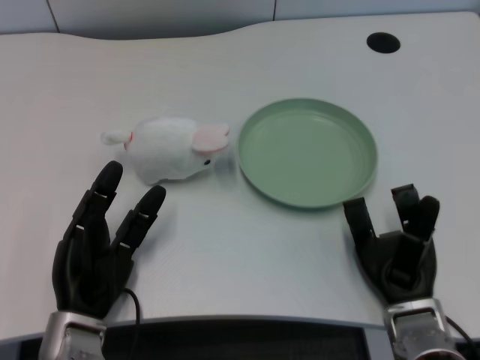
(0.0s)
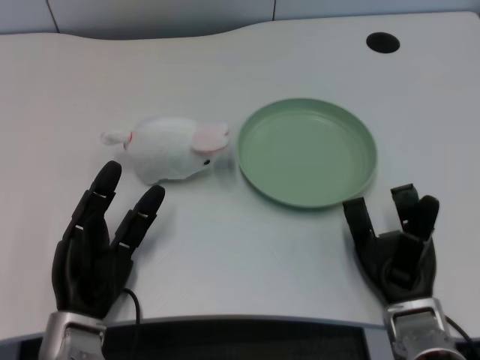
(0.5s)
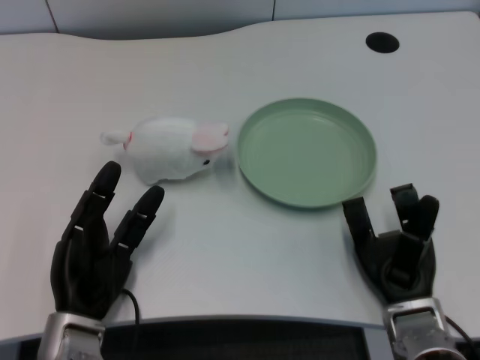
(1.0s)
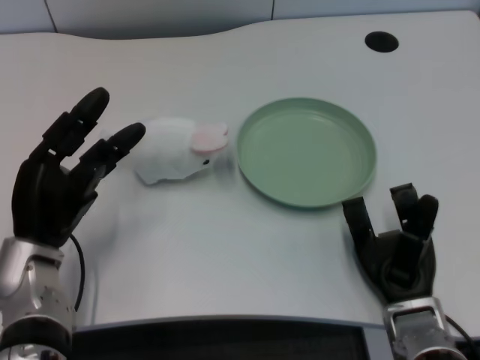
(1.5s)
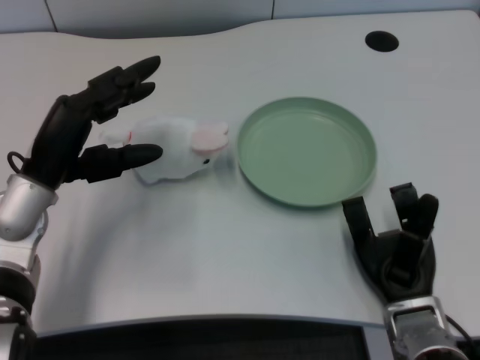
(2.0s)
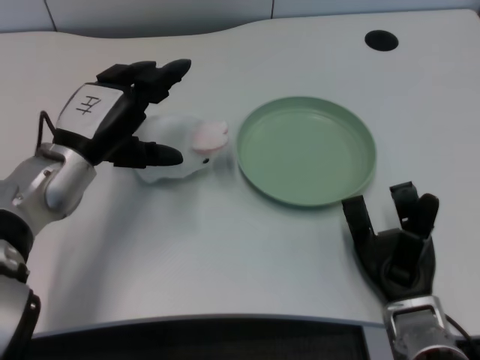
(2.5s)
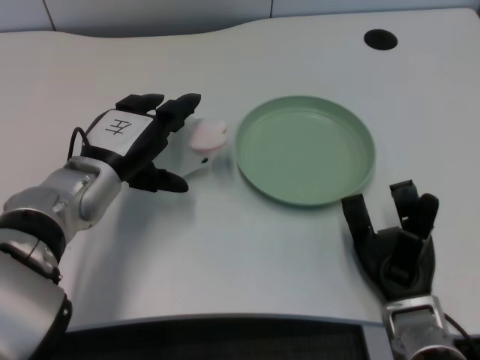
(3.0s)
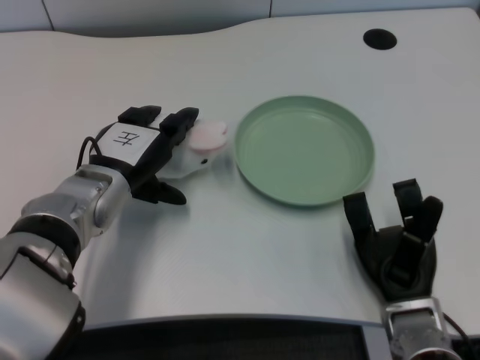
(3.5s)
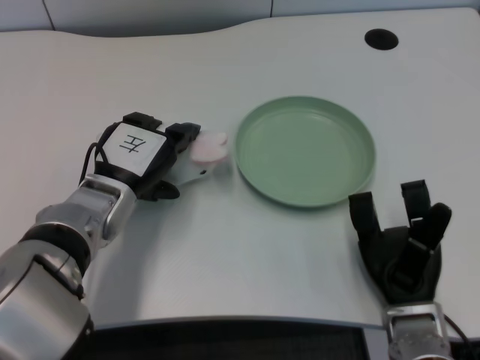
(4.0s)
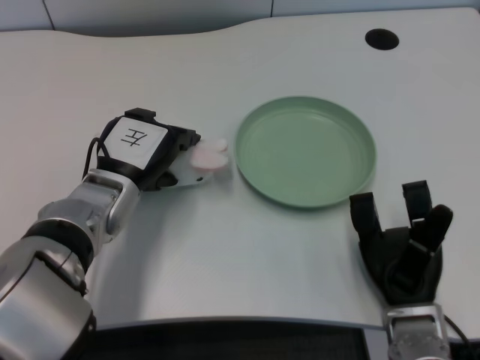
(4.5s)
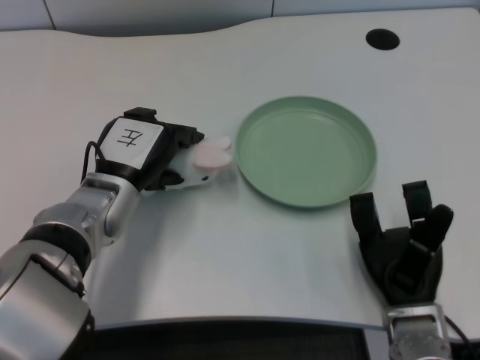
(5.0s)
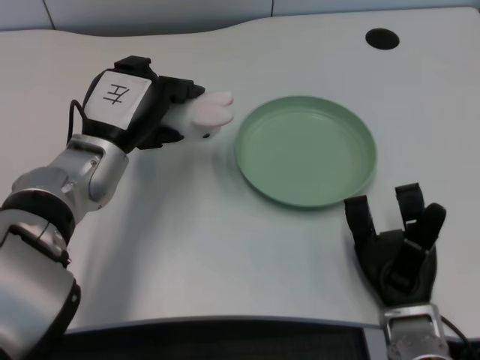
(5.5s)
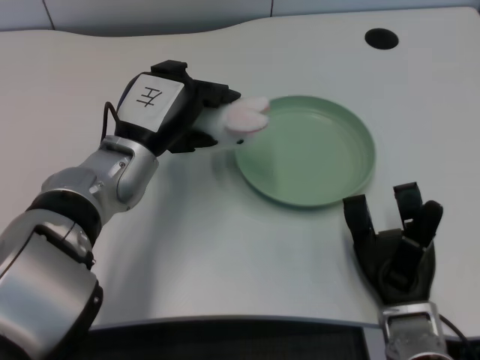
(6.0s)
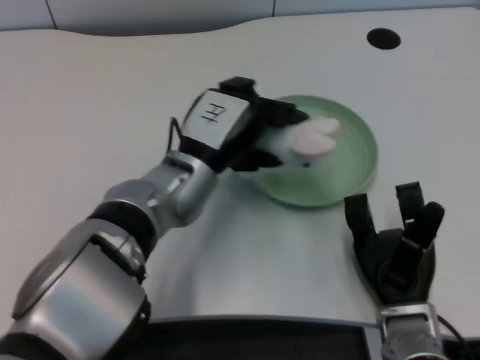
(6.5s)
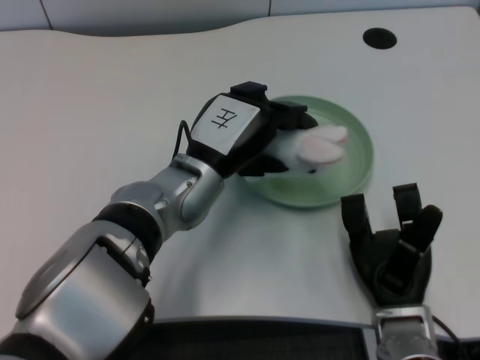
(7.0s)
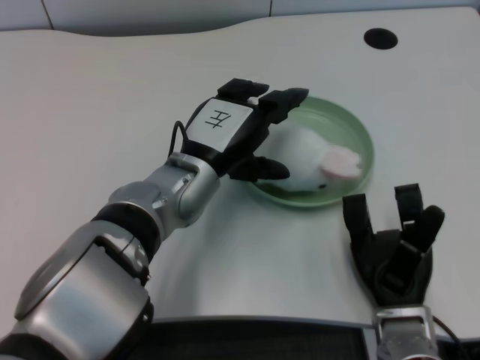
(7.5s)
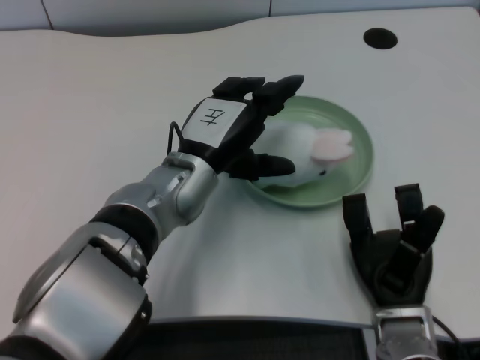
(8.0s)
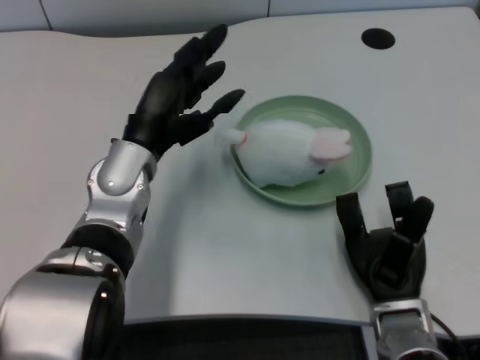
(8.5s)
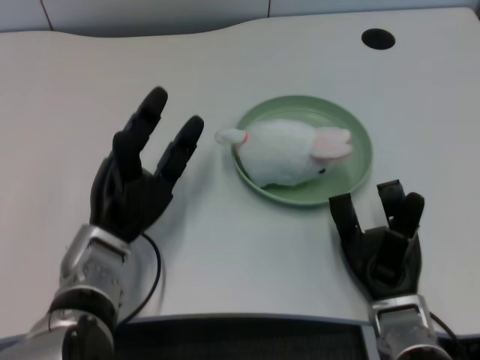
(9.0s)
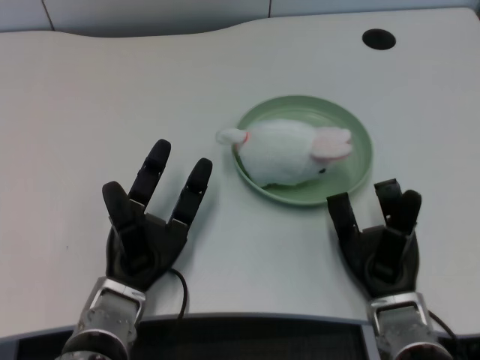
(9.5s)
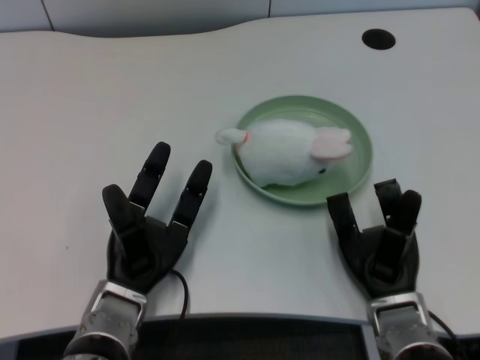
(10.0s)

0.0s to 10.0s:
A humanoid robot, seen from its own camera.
Task of the whole recording: pick up the rabbit doll from the table and place it on the plate.
Step, 1.5s to 5.0s: Grasp the rabbit doll with the left gripper.
Step, 5.5s to 7.5s: Place the rabbit doll into the plate with the left gripper.
2.0s to 4.0s: The left hand heads to the right, covering approximately 5 cm.
6.0s to 8.0s: The left hand travels to the right by some 5 cm.
8.0s to 10.0s: The left hand heads downward, backward and to the left, covering some 15 cm.

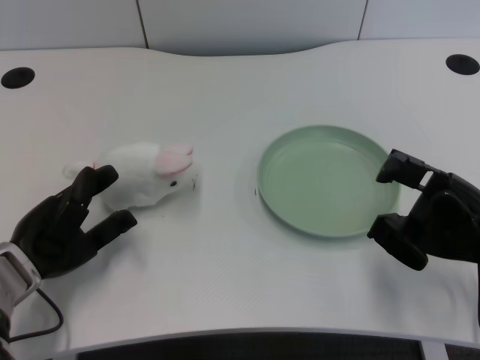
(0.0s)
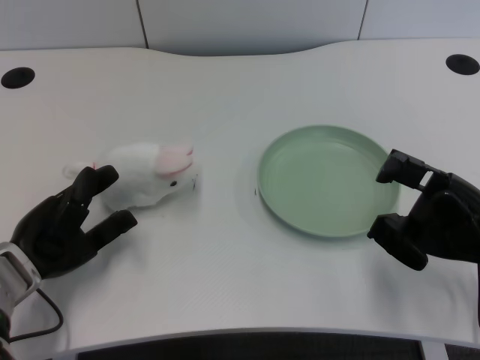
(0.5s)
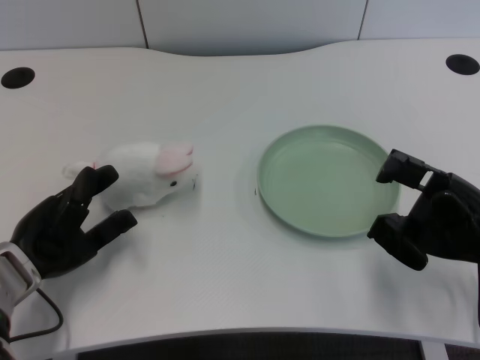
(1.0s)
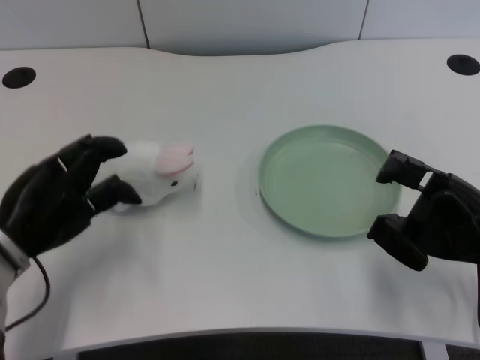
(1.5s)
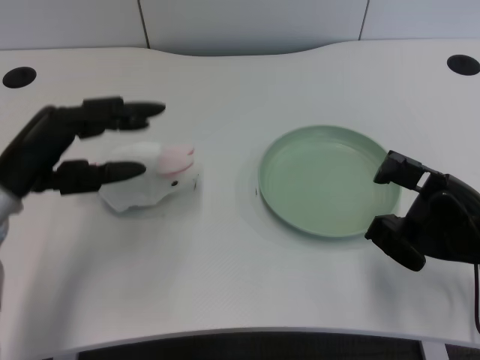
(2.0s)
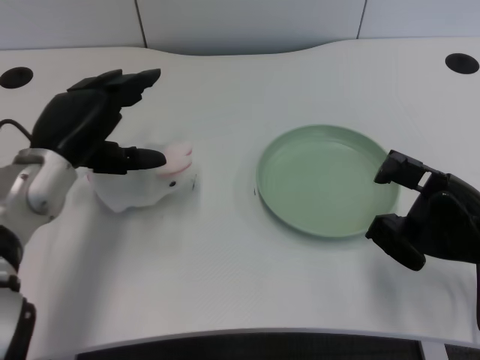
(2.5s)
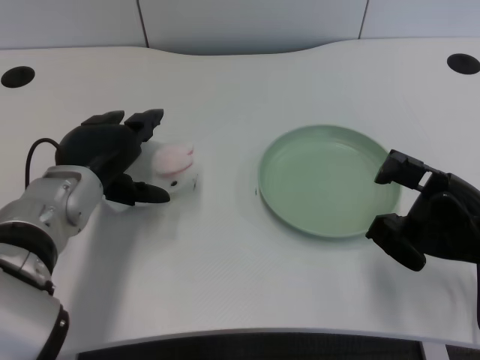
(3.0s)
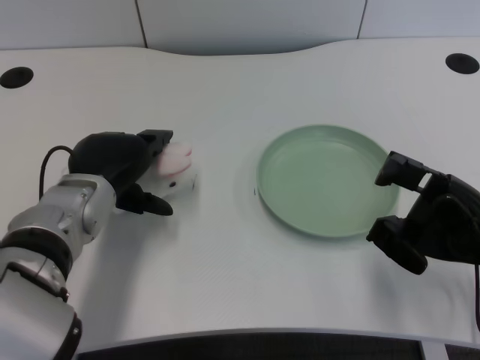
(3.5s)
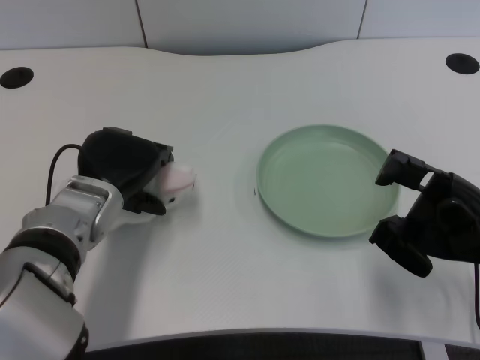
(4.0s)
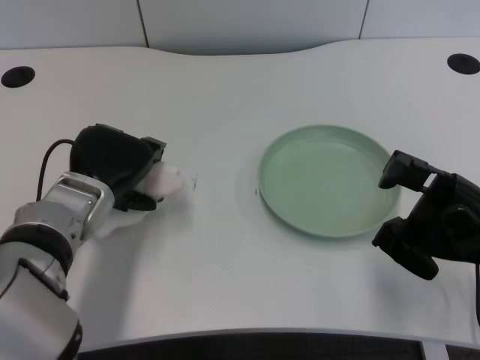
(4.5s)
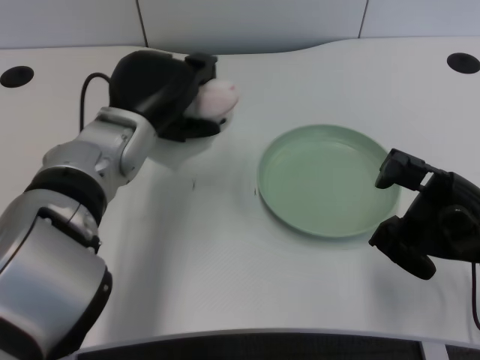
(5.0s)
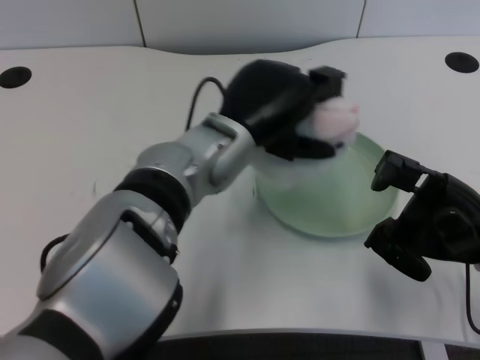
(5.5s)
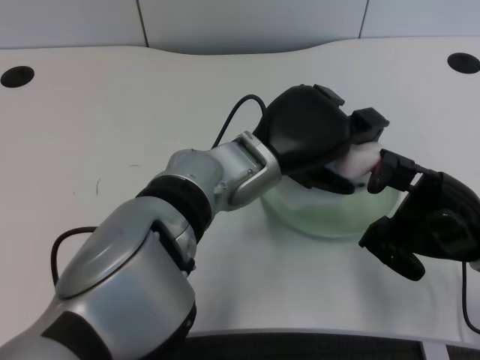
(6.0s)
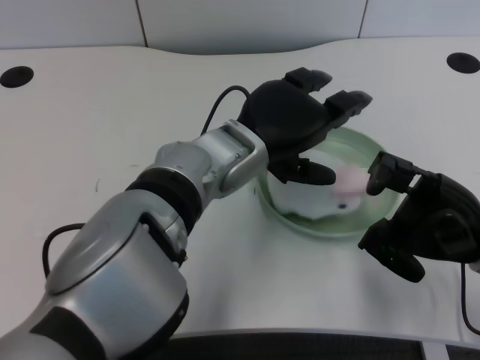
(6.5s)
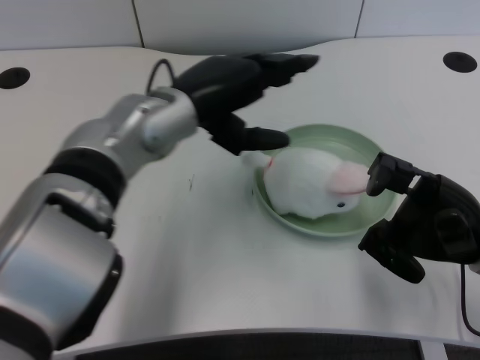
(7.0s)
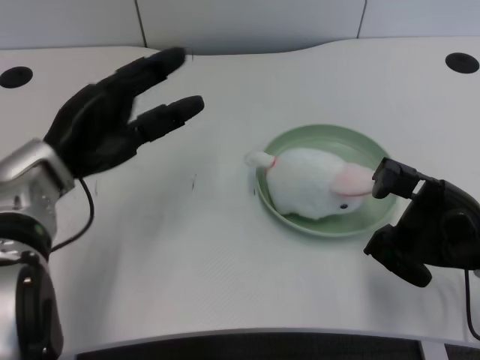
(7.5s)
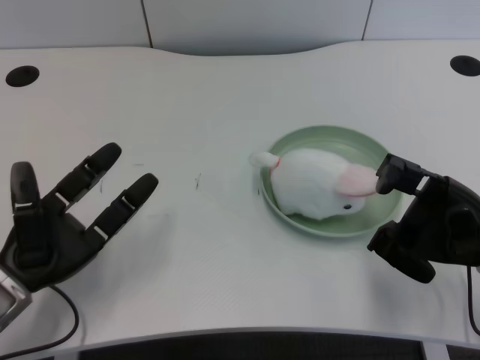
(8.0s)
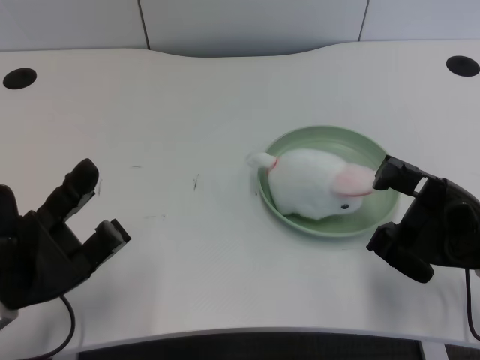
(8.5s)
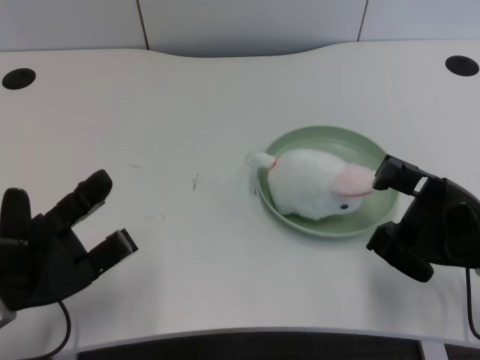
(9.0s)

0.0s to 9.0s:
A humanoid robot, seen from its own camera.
Task of the whole recording: pick up the rabbit doll from the table and place it on the plate.
Step, 1.5s to 4.5s: Grasp the rabbit doll with the left gripper.
Step, 5.0s to 6.0s: Place the rabbit doll into the plate with the left gripper.
2.0s to 4.5s: The left hand travels to the right by about 10 cm.
4.5s to 7.0s: The left hand shifts approximately 10 cm upward and to the right.
7.0s to 9.0s: The left hand heads to the left, downward and backward, covering approximately 25 cm.

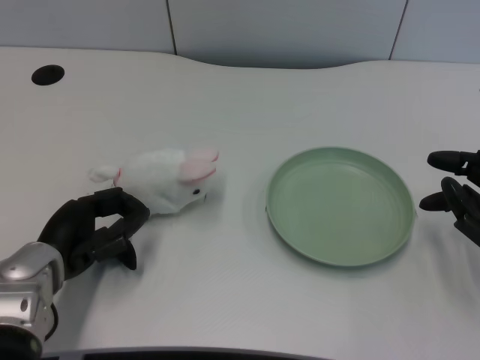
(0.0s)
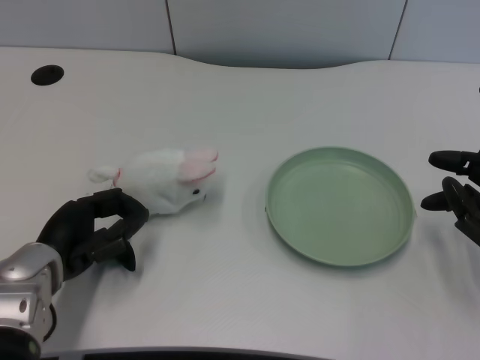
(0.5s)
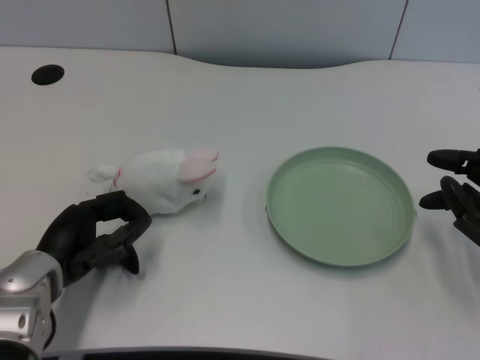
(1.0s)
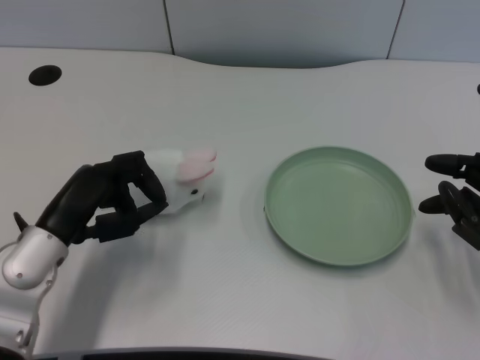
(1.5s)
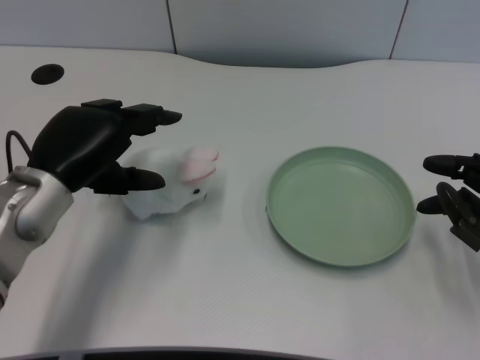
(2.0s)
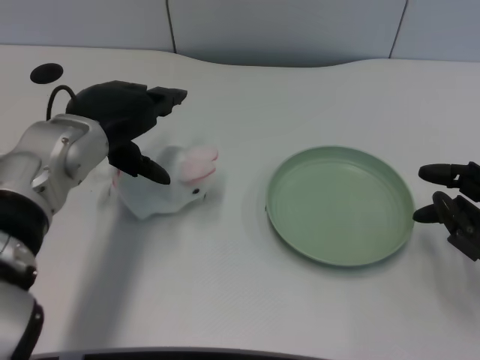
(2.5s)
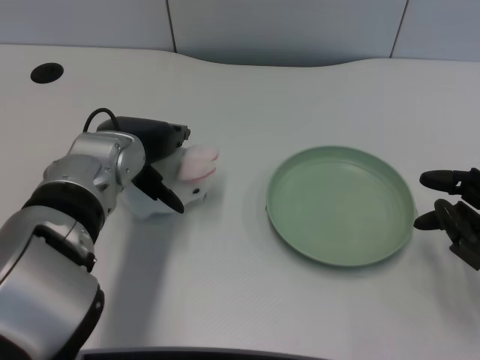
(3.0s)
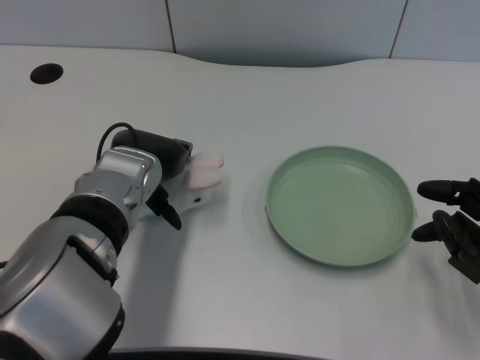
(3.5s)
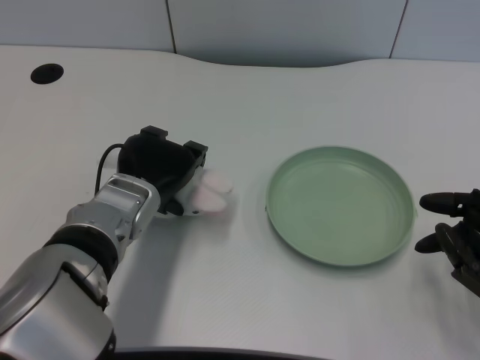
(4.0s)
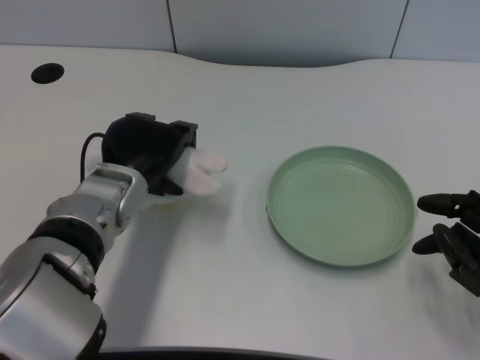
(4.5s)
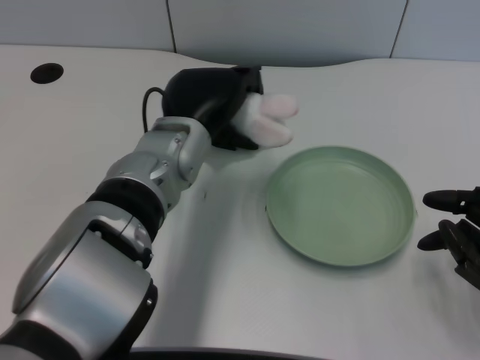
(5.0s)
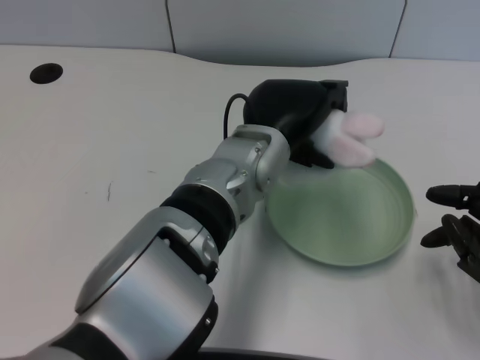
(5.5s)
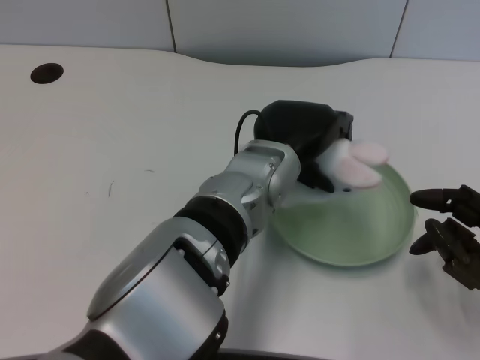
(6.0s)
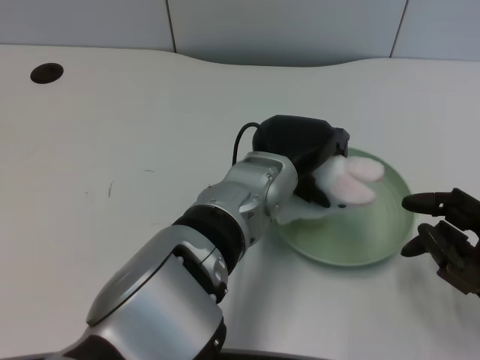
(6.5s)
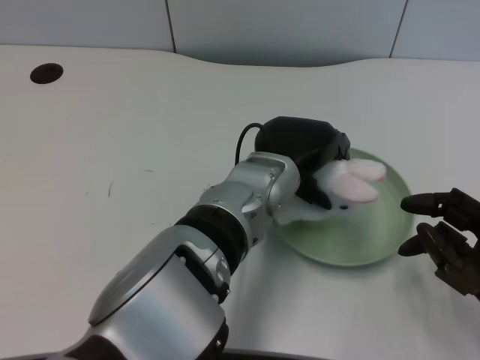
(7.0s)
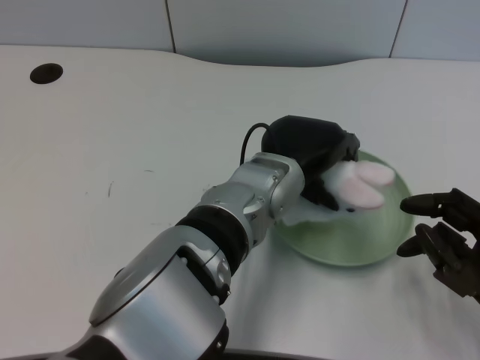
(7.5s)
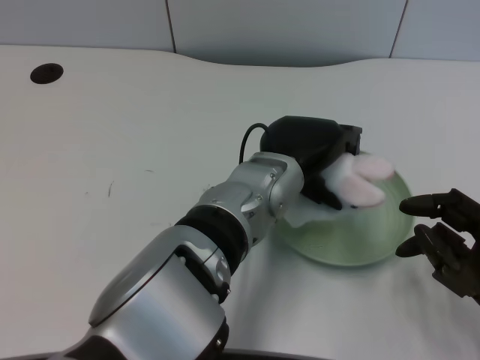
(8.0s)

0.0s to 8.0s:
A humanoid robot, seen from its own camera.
Task of the whole recording: pick up the rabbit doll from the table and place it on the plate.
Step, 1.5s to 4.0s: Grasp the rabbit doll with the left gripper.
2.0s to 4.0s: The left hand goes approximately 10 cm to the right.
4.0s to 6.0s: The left hand is displaced to the right by some 15 cm.
6.0s to 8.0s: There are only small adjustments of the hands.
